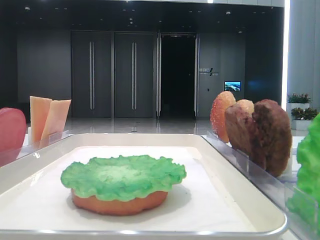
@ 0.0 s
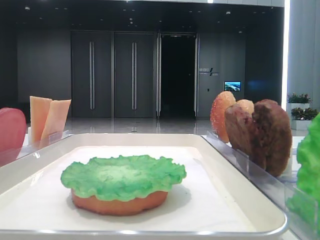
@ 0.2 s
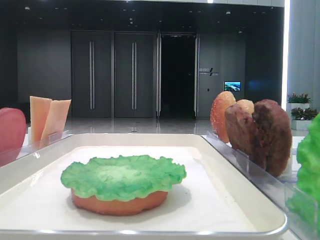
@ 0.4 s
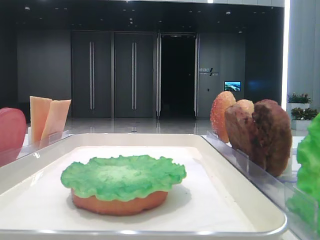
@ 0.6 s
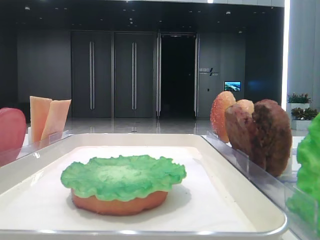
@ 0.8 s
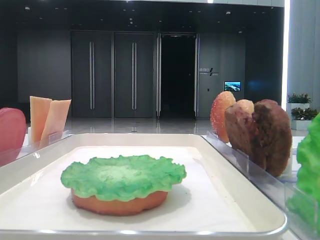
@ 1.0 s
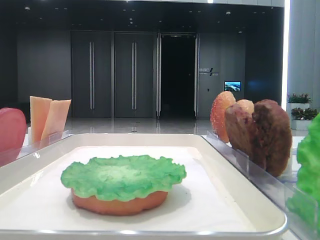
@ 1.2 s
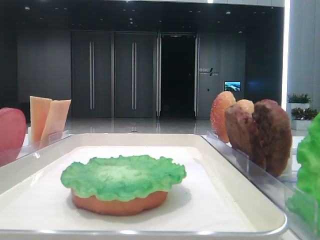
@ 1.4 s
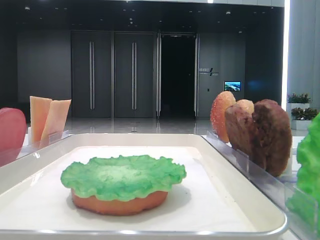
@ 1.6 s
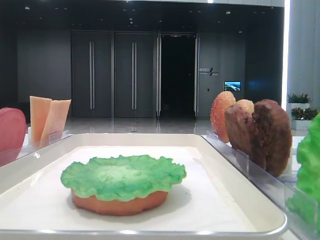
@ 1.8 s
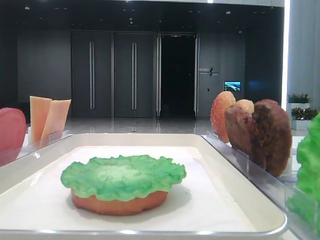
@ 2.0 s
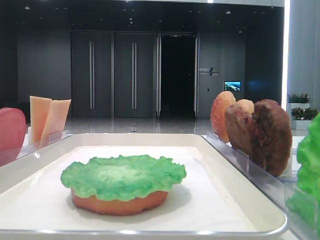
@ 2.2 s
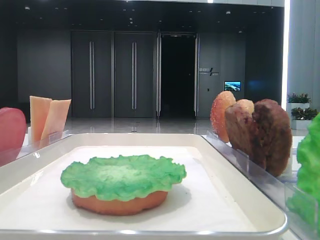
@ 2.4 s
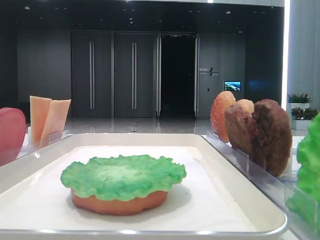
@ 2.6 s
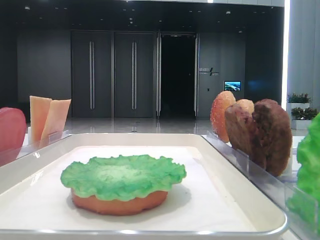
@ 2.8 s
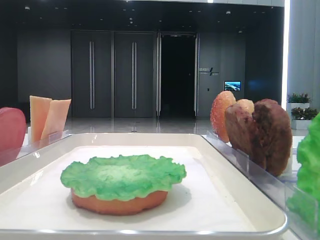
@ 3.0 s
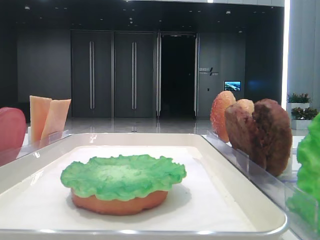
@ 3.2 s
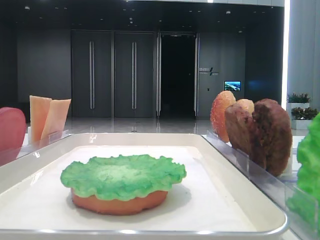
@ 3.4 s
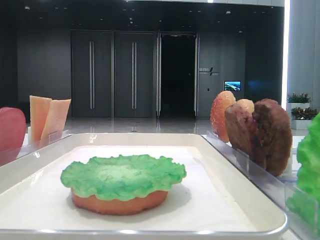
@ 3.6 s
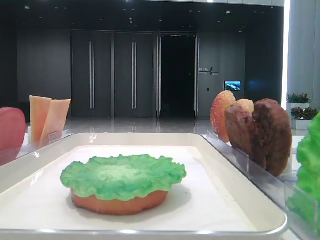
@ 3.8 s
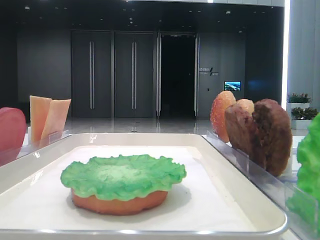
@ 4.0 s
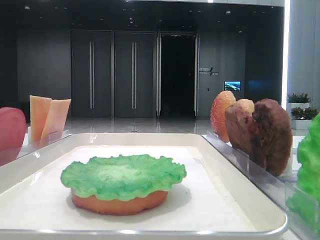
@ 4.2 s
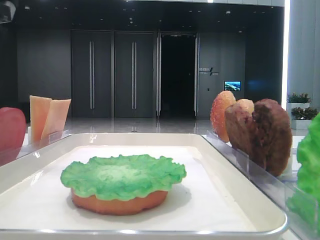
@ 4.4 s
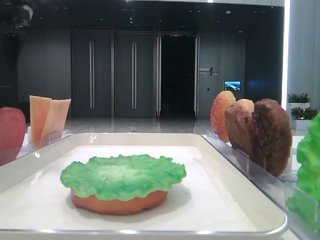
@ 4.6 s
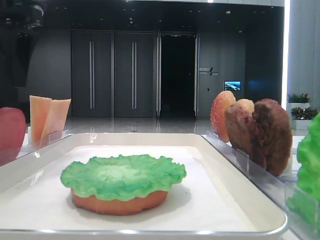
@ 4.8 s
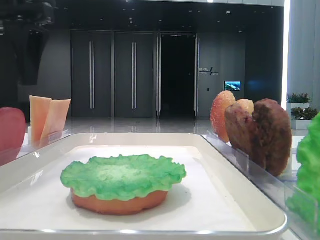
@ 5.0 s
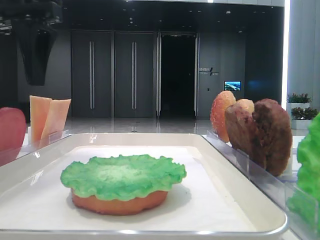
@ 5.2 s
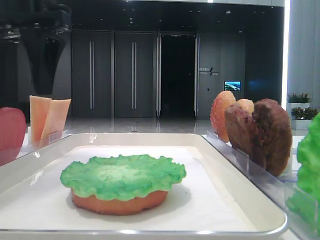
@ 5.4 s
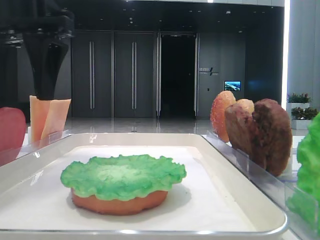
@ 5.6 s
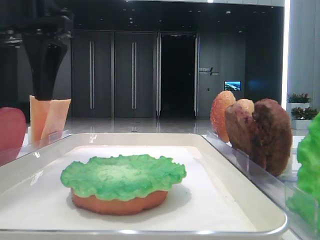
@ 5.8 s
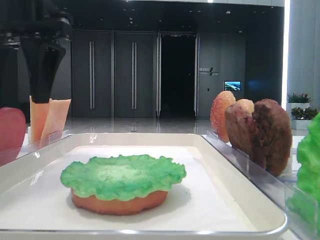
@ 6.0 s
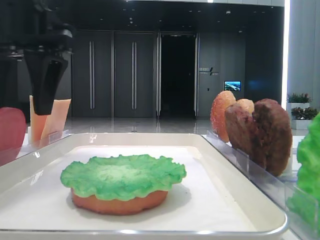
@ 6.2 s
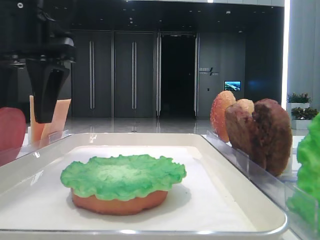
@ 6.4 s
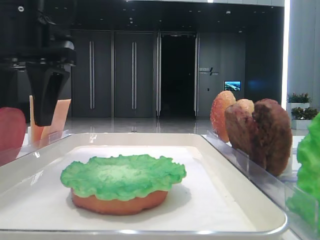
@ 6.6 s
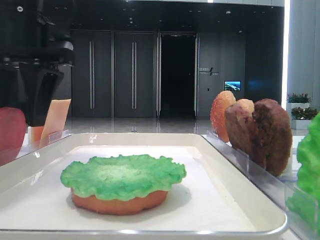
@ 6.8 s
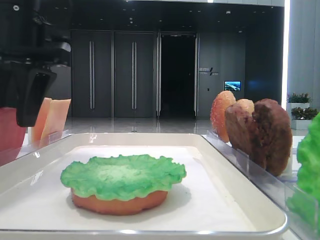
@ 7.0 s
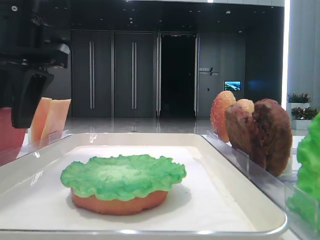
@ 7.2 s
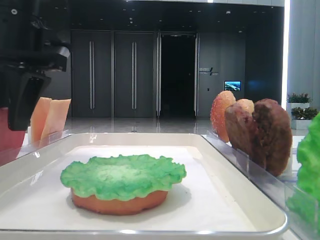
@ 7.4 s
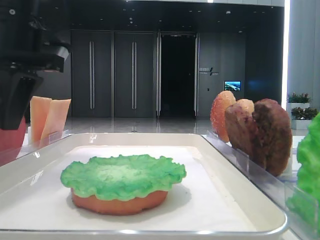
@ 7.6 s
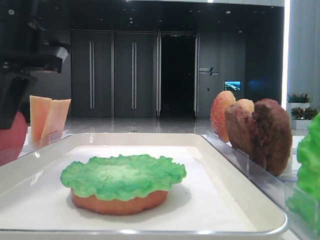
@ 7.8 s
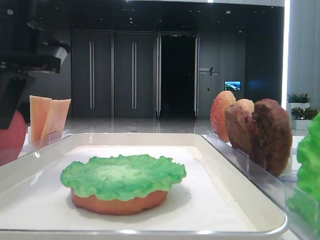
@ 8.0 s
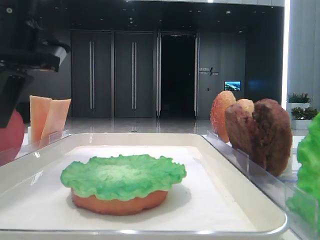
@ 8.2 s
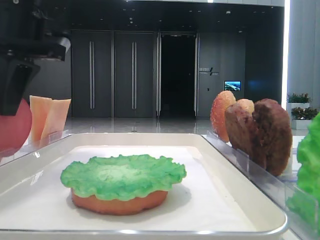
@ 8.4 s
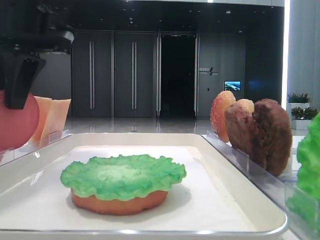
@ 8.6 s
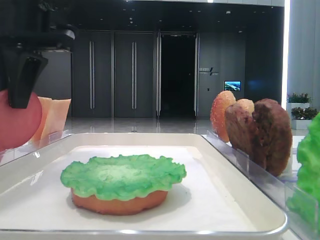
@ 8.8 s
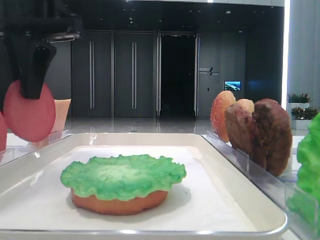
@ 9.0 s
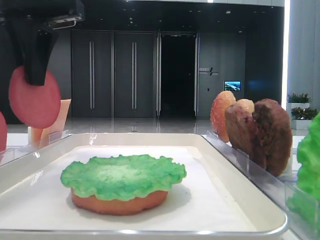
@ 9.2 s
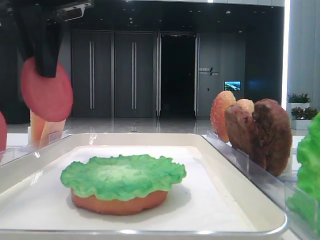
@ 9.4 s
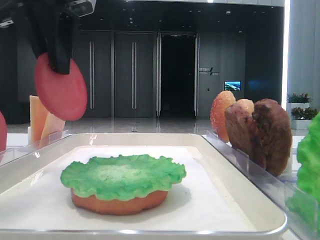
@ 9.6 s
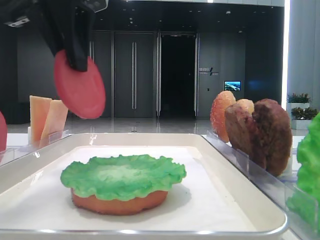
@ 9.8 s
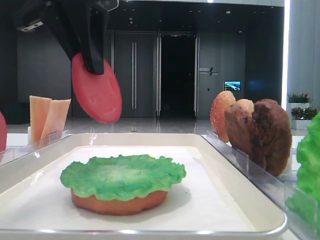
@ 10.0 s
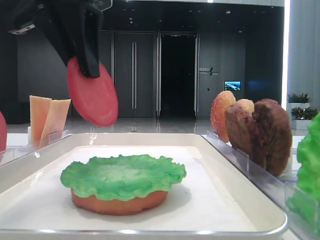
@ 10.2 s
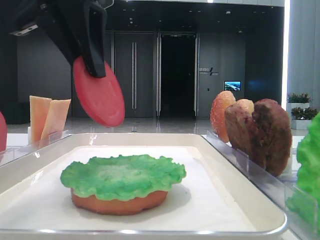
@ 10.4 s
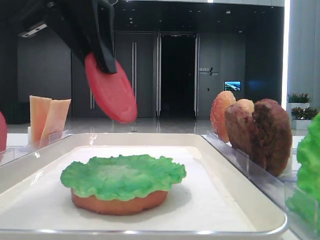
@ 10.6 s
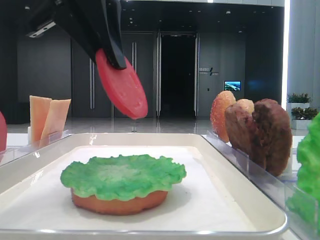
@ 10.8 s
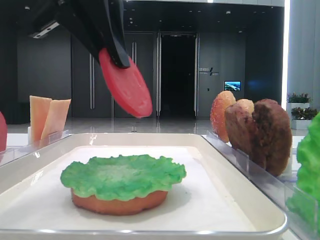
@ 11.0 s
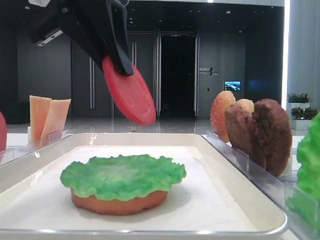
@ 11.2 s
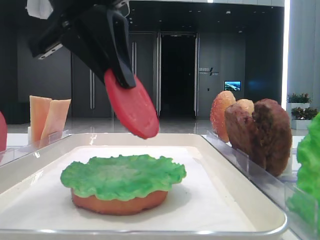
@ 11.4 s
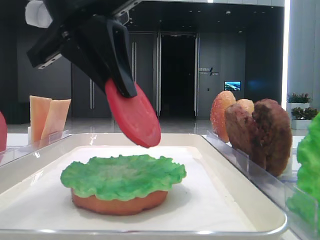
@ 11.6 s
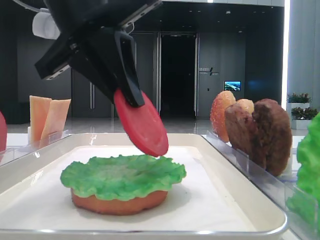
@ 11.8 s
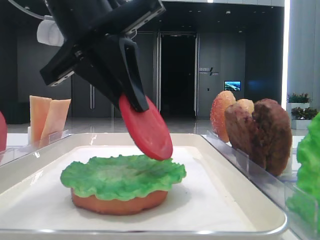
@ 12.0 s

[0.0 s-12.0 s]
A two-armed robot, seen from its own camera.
Step, 0.0 to 8.0 s: Pick up the tomato slice with the left hand.
4.4 to 6.0 s: The left gripper is displaced to the right by some 10 cm.
6.0 to 7.6 s: The left gripper closes up.
7.6 to 9.0 s: The grippers move only a little.
9.0 to 10.4 s: The left gripper moves to the right and backward, approximately 10 cm.
10.4 to 12.0 s: The left gripper ends up about 5 cm from where it was.

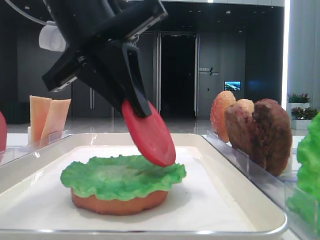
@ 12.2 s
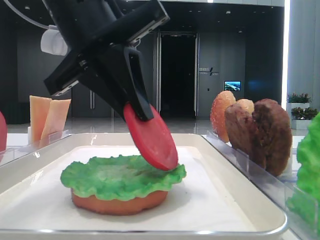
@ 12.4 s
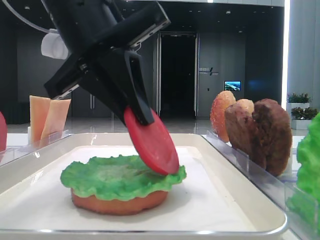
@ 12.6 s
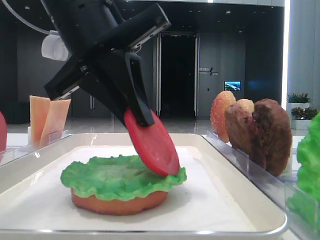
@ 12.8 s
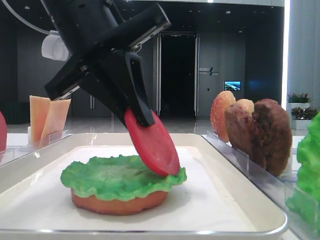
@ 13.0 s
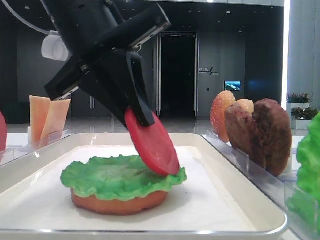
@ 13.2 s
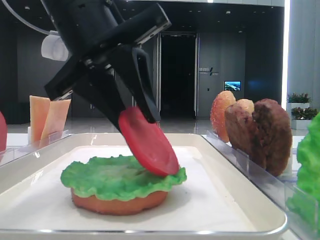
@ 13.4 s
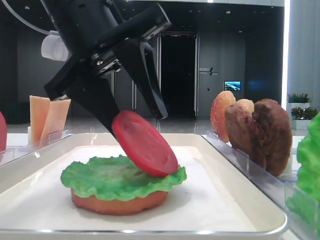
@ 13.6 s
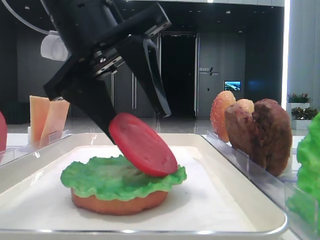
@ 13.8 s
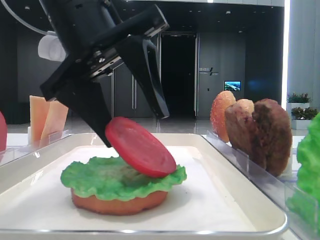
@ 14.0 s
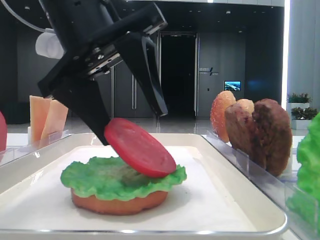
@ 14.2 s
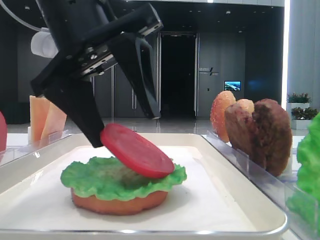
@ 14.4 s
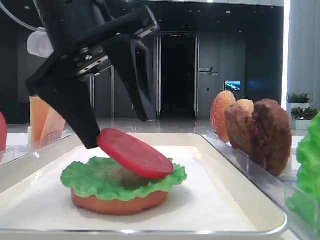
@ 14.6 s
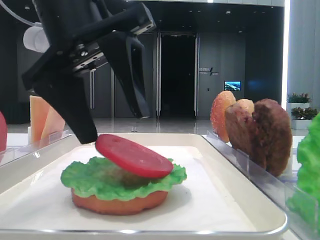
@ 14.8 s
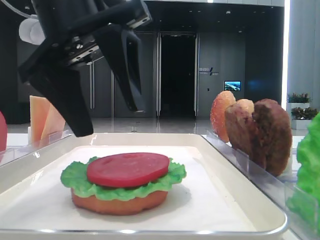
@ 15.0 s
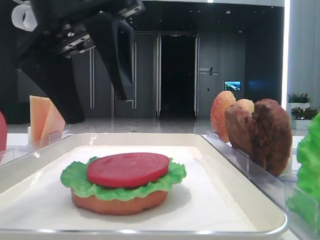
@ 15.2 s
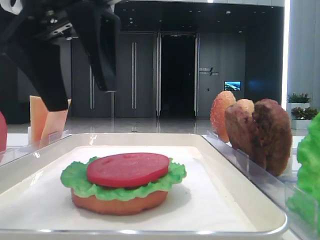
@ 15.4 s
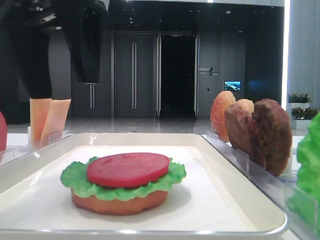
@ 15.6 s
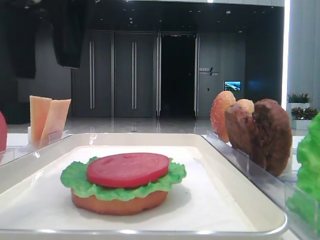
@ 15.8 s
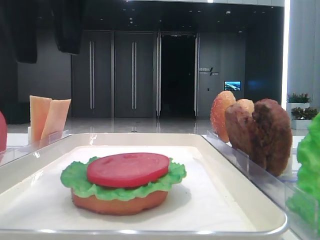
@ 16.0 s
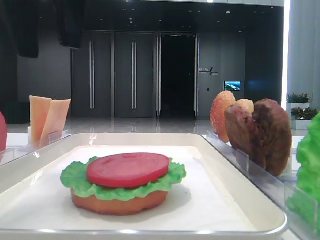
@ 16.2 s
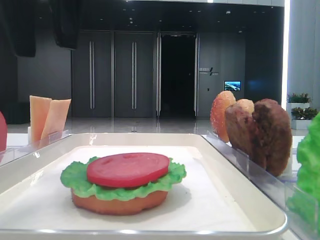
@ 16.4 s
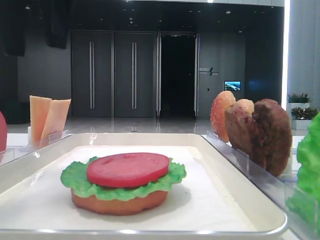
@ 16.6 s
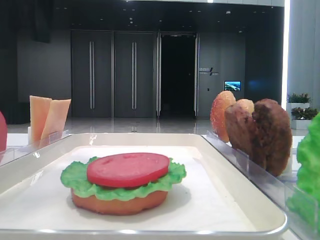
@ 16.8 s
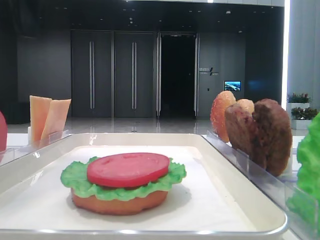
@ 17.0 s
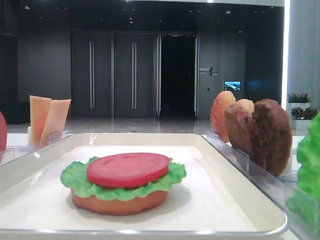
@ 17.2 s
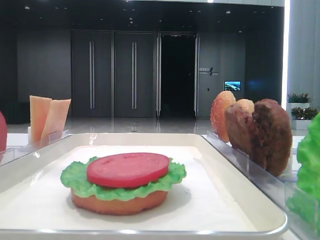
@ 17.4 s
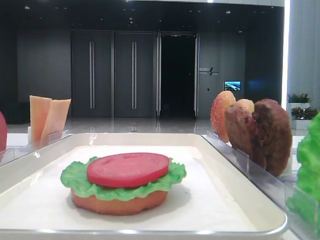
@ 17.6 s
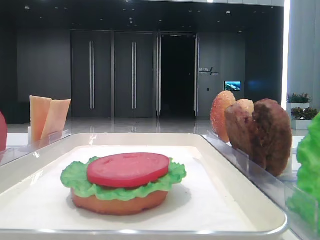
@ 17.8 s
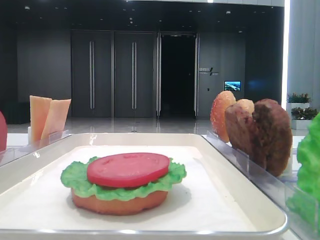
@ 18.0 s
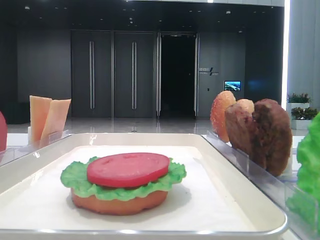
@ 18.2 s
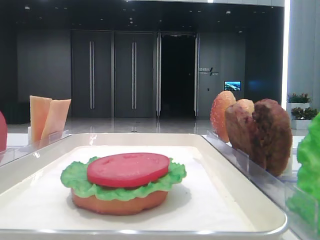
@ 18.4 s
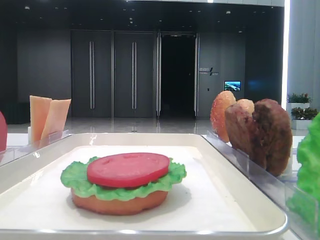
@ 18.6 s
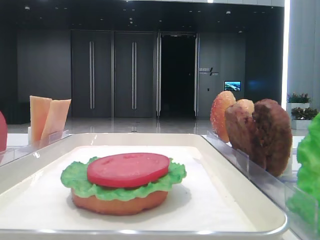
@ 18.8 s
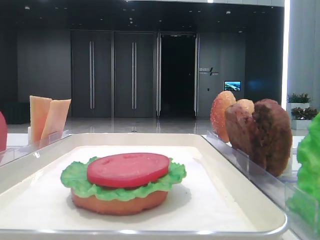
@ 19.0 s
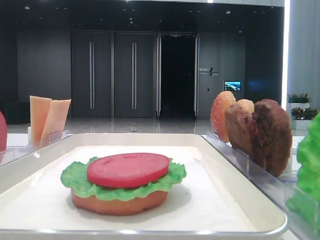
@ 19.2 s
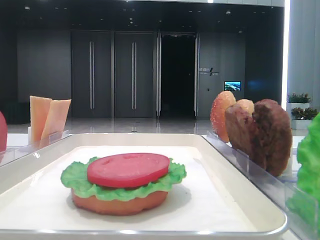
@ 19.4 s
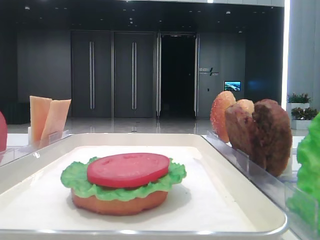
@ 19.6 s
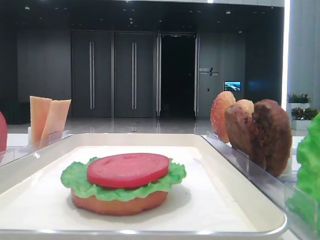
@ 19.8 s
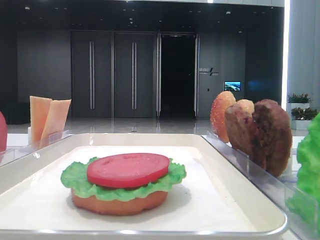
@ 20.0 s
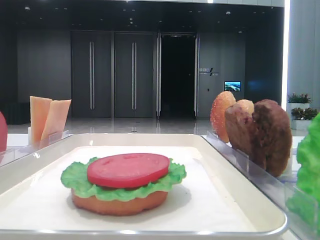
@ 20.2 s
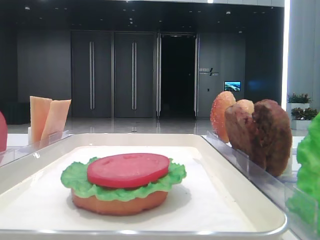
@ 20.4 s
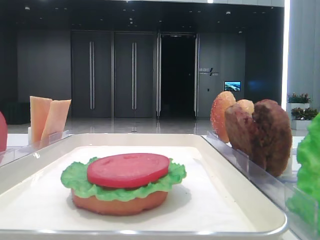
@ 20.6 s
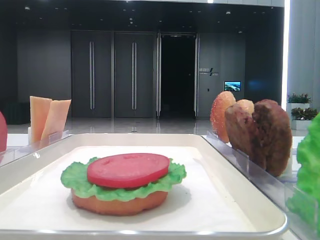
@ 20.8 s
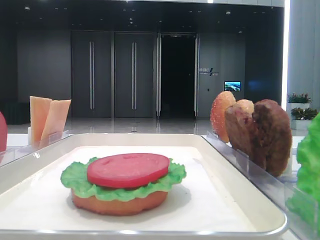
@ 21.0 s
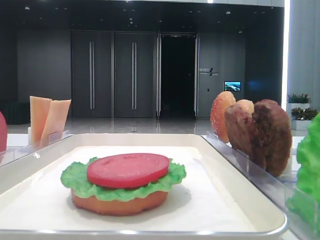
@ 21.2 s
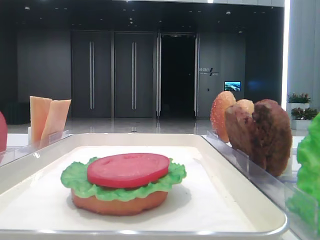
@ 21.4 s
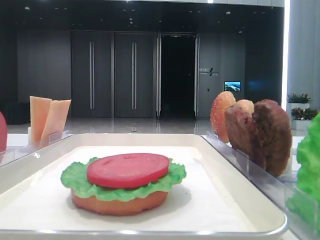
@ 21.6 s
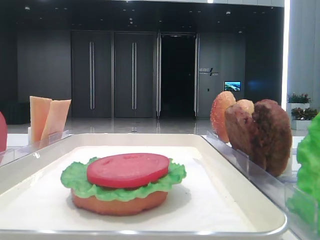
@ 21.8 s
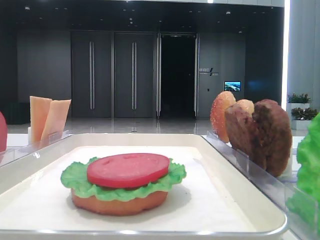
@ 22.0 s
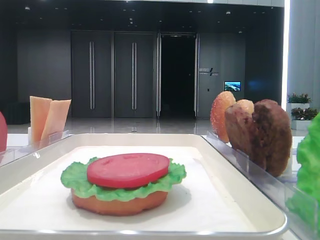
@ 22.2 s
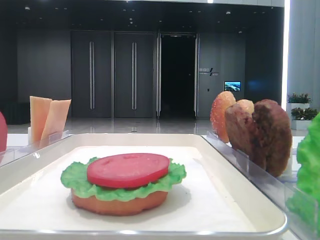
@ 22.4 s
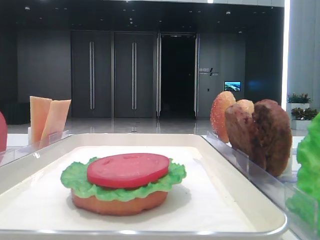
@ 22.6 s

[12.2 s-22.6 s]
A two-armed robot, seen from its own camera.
Step, 12.2 to 14.6 s: Place the tomato slice on the lettuce leaf with the left hand.
12.2 to 13.6 s: The left gripper opens.
13.6 to 15.2 s: The grippers stay close to where they were, moving slightly.
15.2 to 16.6 s: The left gripper heads upward, covering about 5 cm.
16.6 to 18.2 s: The left gripper goes approximately 20 cm to the left.
21.2 to 22.6 s: Both grippers stay put.
